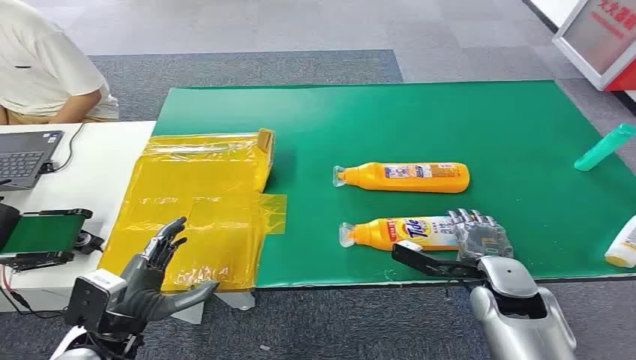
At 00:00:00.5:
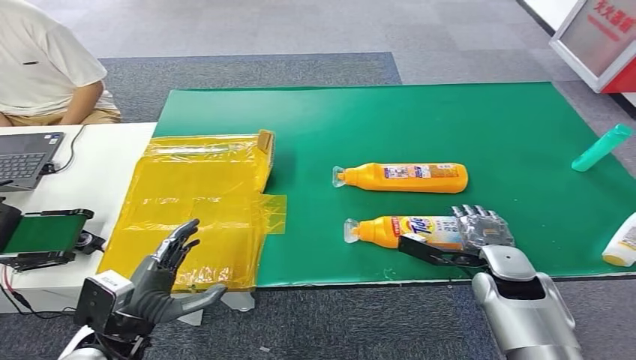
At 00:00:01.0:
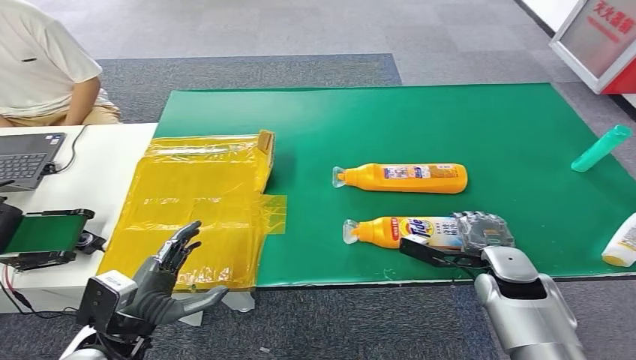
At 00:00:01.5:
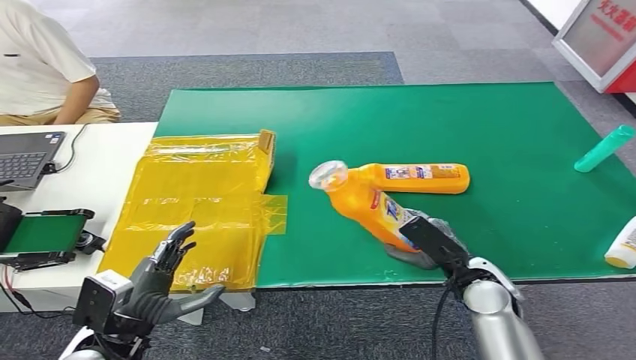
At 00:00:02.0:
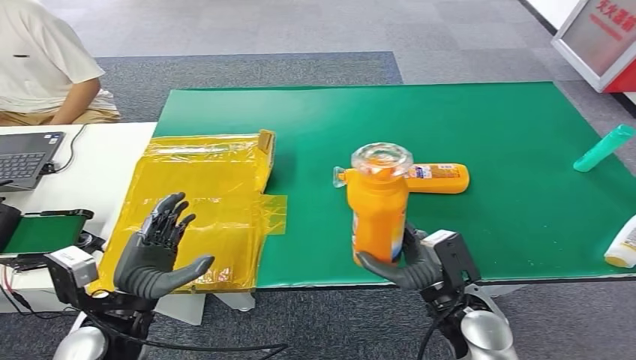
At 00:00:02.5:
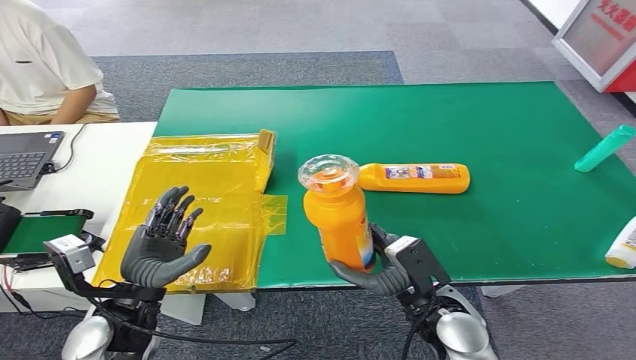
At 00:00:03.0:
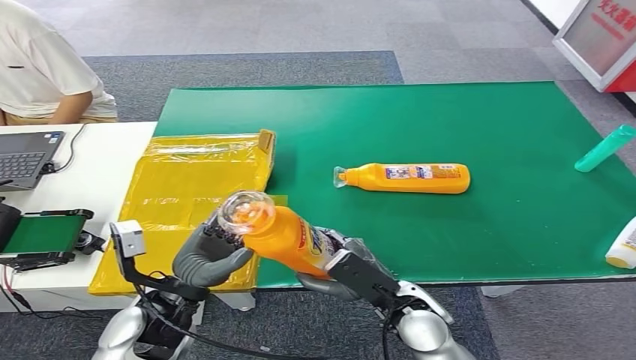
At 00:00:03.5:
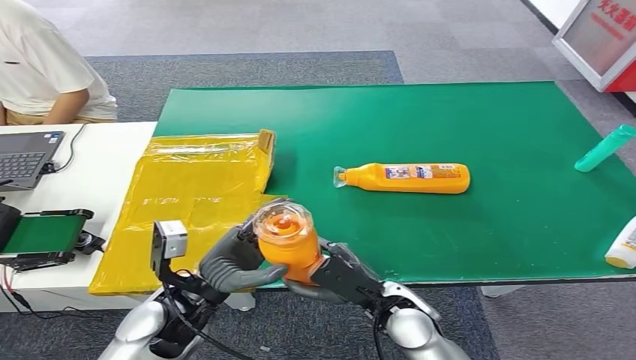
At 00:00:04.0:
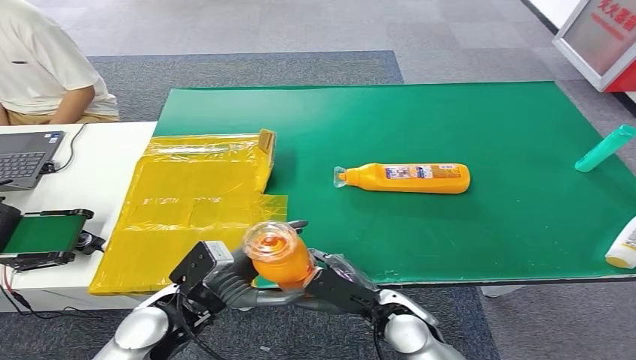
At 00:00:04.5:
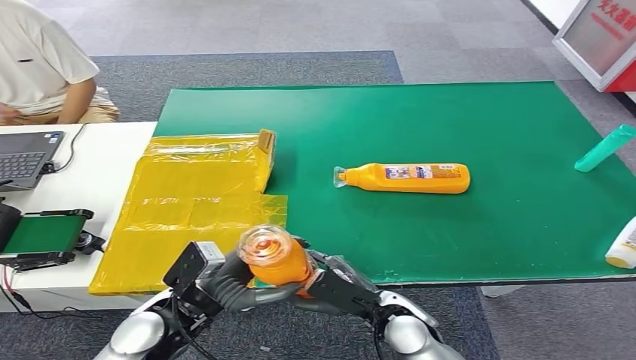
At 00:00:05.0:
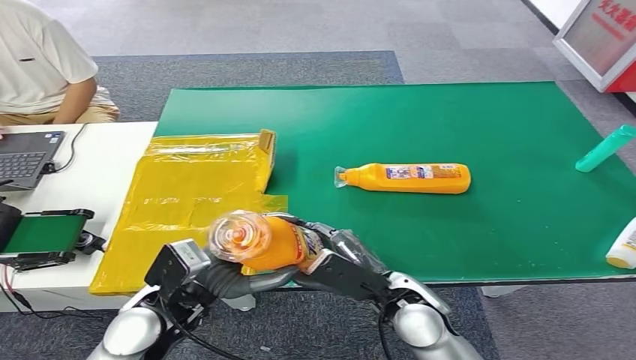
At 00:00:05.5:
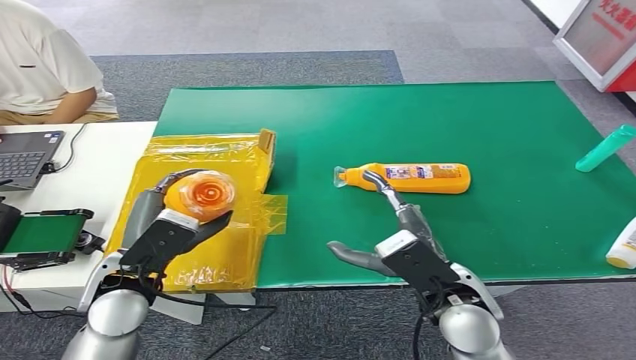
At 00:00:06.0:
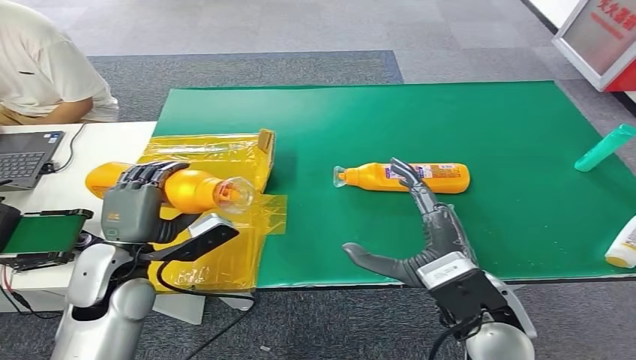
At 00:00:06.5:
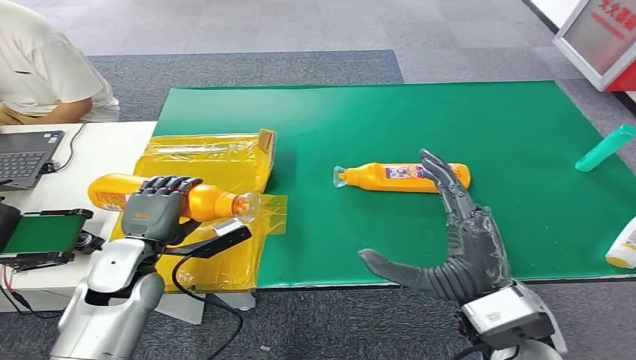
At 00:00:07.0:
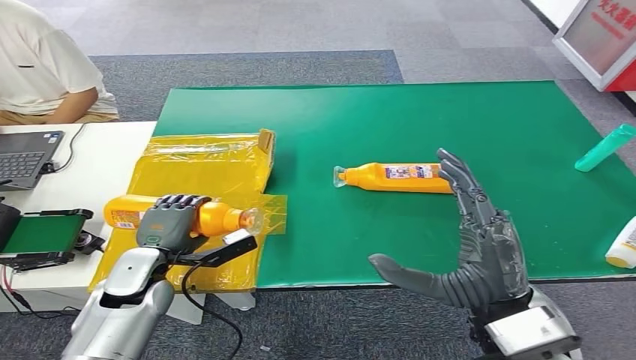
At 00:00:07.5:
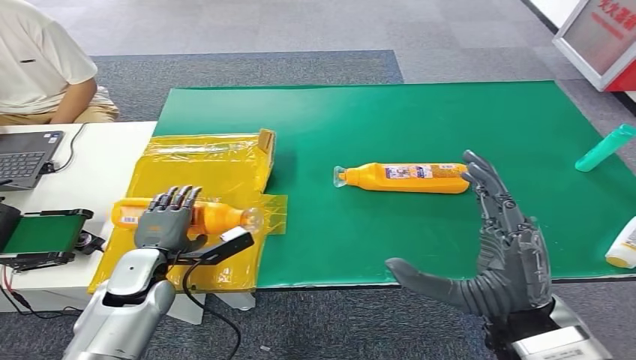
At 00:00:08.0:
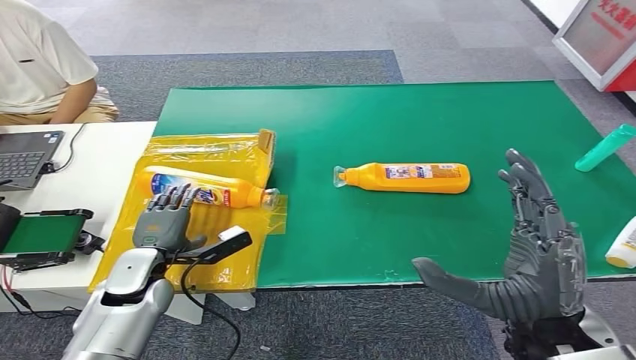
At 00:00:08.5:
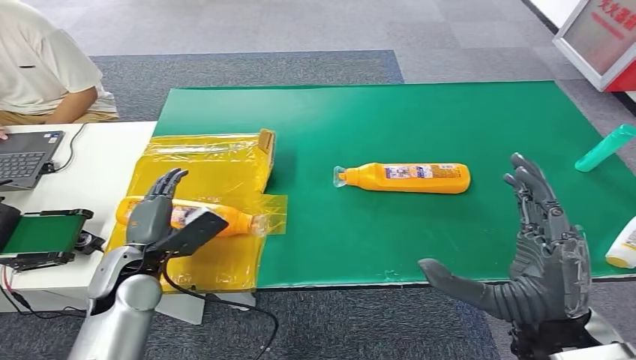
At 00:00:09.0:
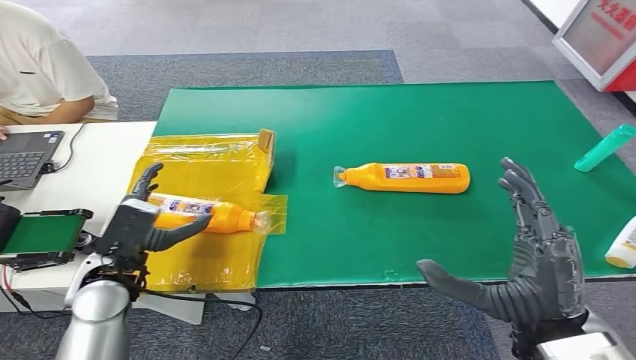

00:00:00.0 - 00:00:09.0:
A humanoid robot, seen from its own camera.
Step, 00:00:00.0 - 00:00:02.5: Pick up the bottle from the table.
Step, 00:00:03.0 - 00:00:09.0: Turn the bottle to the front side.
00:00:02.0 - 00:00:04.5: The left hand goes about 5 cm to the right, while the right hand heads to the left, covering approximately 10 cm.
00:00:04.5 - 00:00:07.0: The left hand shifts some 10 cm forward and to the left, and reaches approximately 5 cm upward, then returns. The right hand shifts some 20 cm upward and to the right.
00:00:07.0 - 00:00:09.0: The left hand goes some 5 cm upward.
